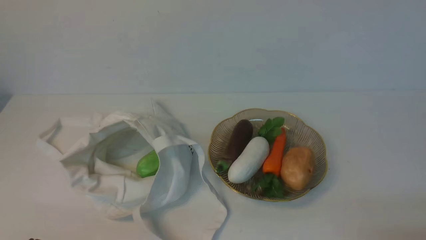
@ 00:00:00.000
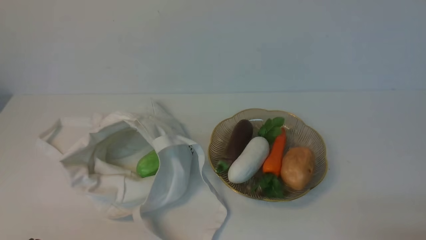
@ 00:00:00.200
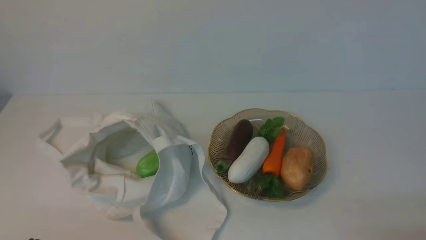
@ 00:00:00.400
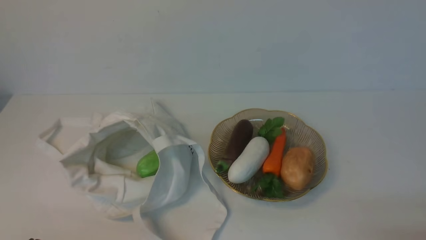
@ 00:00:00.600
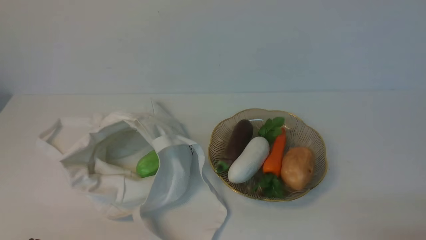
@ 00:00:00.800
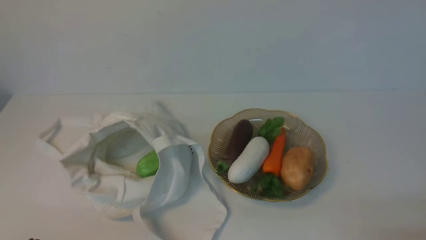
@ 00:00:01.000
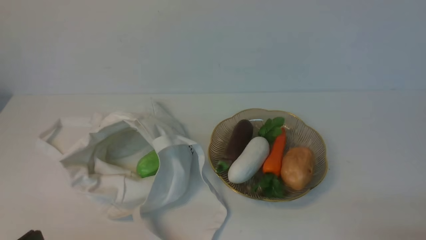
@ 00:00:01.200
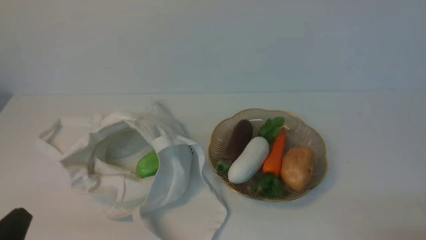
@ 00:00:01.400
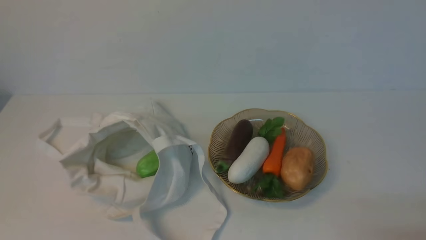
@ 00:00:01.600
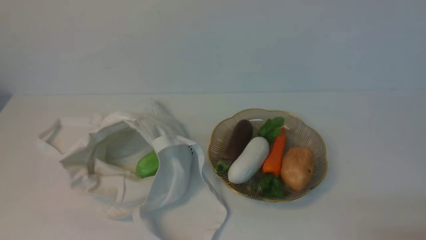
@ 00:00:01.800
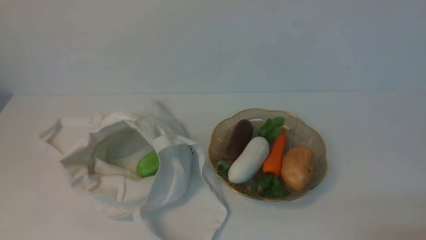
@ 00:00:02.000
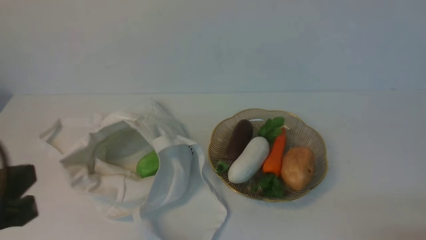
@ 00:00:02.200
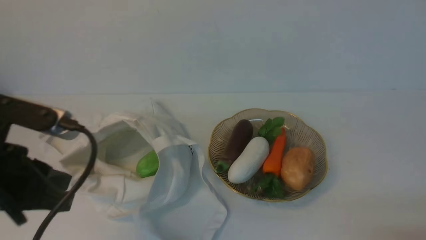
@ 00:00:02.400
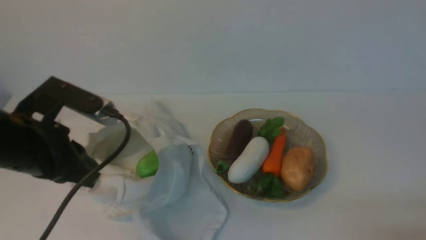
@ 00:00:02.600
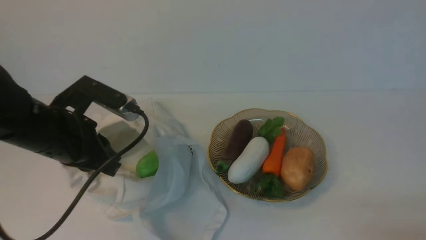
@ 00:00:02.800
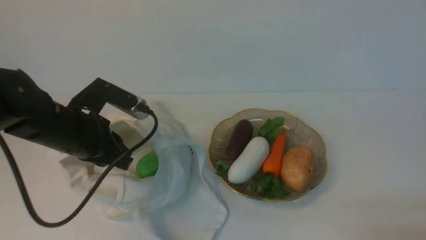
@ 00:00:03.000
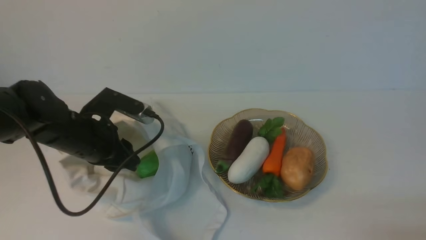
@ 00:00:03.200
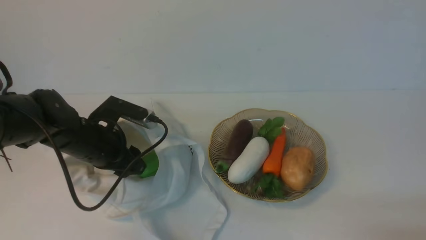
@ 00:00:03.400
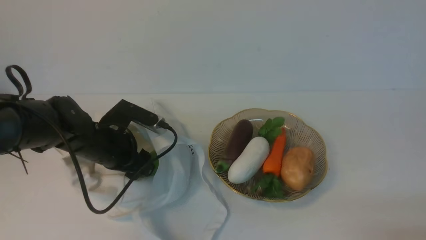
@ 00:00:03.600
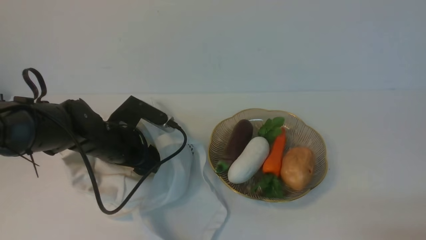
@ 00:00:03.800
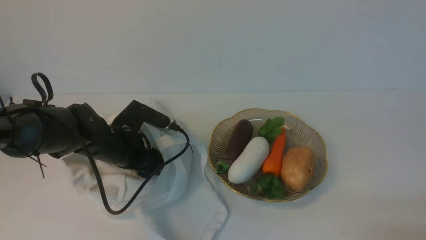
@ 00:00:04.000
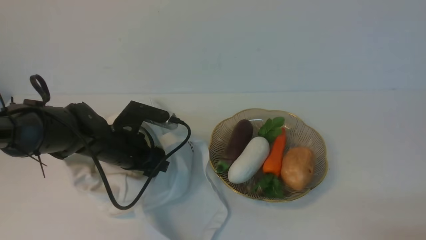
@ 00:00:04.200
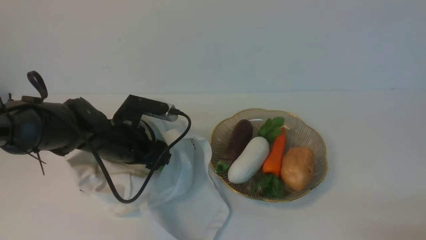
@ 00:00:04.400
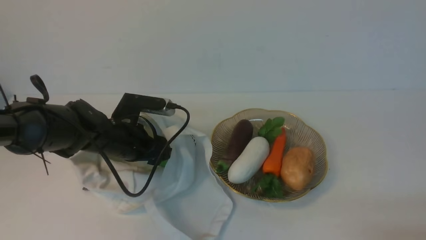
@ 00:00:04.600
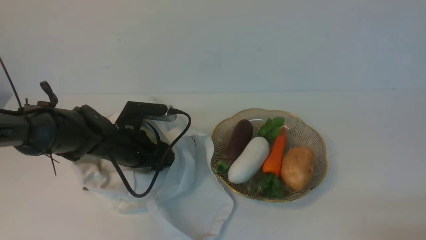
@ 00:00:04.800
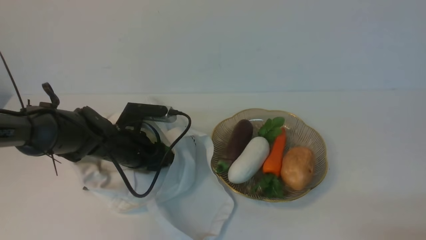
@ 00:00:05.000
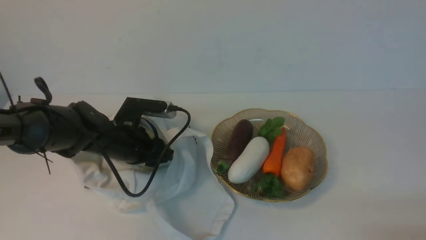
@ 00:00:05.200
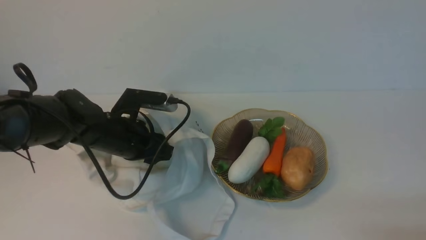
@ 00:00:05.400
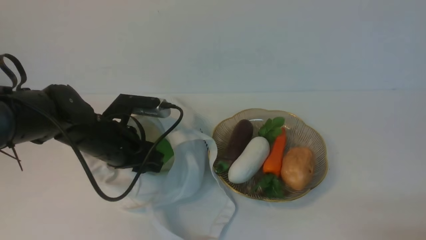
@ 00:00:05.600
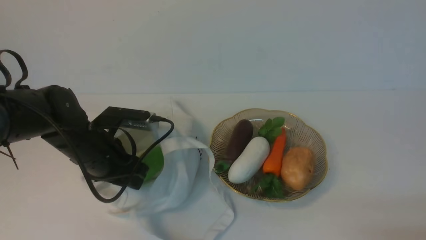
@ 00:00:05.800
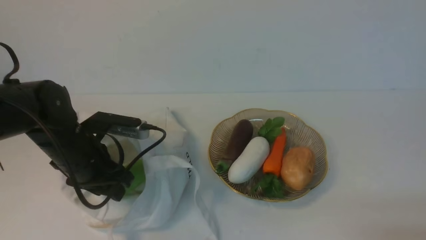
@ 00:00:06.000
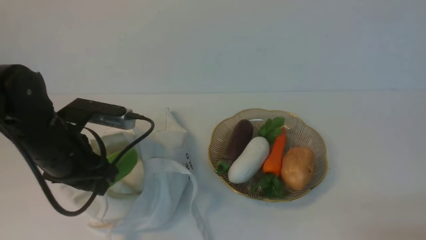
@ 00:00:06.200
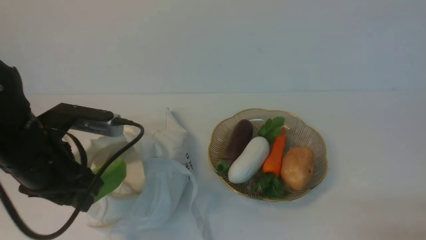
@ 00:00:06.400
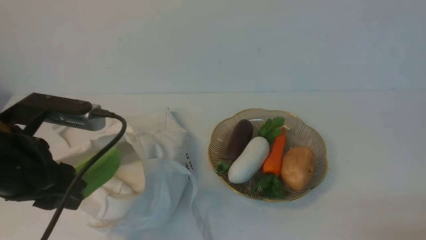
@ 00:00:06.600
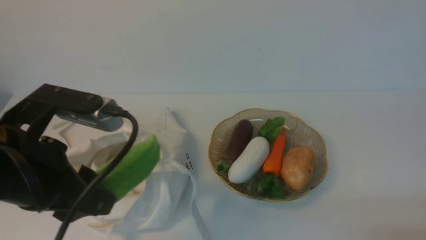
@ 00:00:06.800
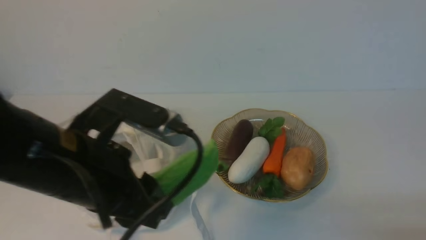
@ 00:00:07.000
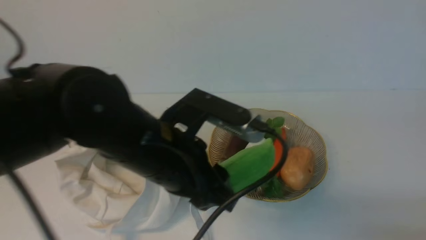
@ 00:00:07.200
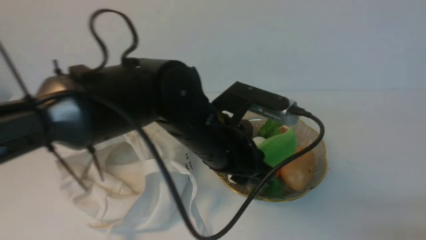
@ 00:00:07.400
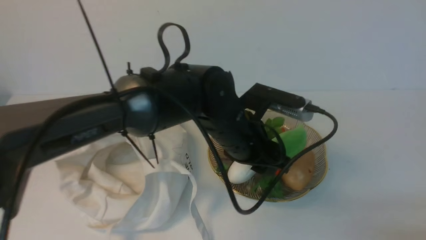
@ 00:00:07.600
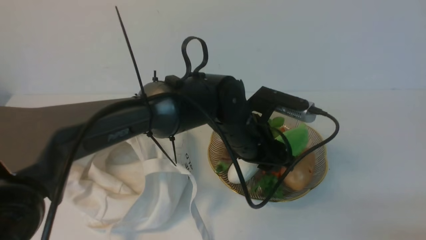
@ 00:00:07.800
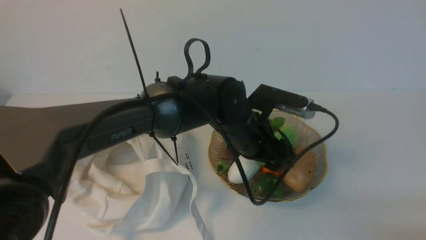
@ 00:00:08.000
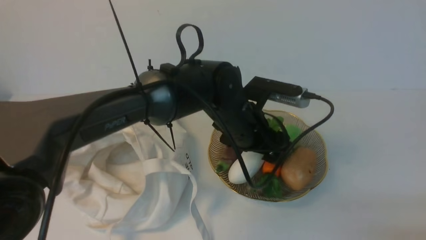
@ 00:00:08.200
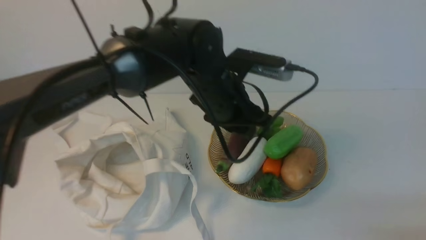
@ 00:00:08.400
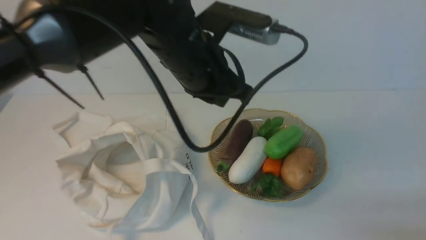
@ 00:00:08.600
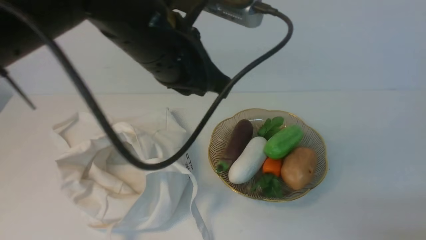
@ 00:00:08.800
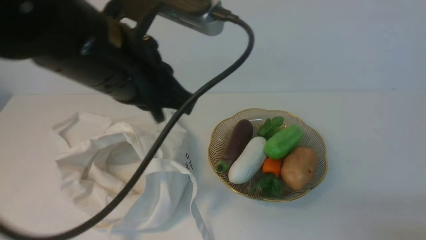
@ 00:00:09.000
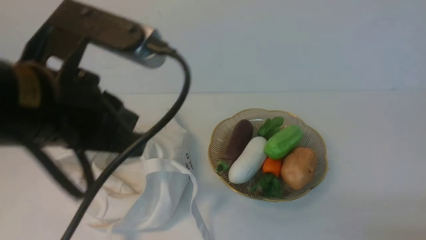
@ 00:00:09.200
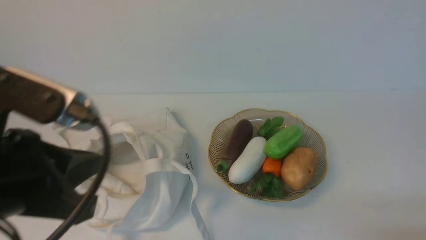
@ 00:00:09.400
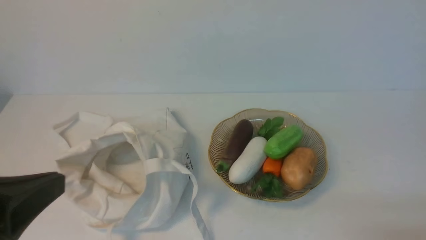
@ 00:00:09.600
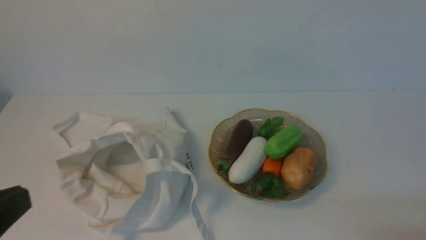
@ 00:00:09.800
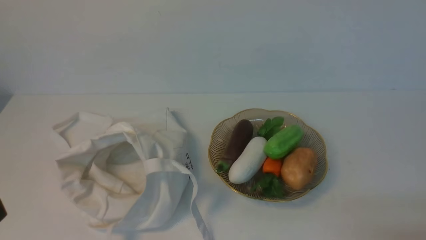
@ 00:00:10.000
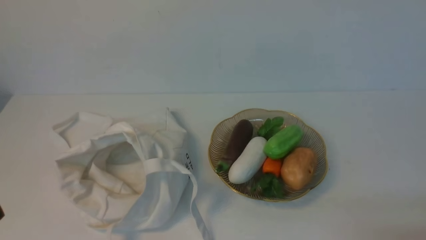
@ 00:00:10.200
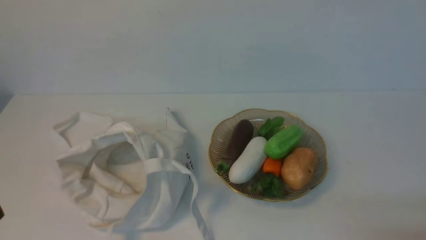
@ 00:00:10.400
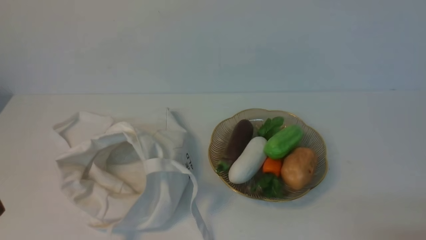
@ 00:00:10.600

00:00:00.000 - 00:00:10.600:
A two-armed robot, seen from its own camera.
Task of the whole recording: take vegetables from cloth bag on white table place on plate.
Step, 00:00:00.000 - 00:00:04.000: Grasp the bitter melon with left gripper.
Step, 00:00:04.200 - 00:00:08.200: Place the bitter melon on the plate with left gripper.
00:00:01.600 - 00:00:03.000: The left gripper heads forward, covering some 25 cm.
00:00:03.000 - 00:00:04.600: The left gripper is displaced downward and forward by approximately 10 cm, and opens.
00:00:04.600 - 00:00:06.000: The left gripper moves about 5 cm, and closes.
00:00:06.000 - 00:00:07.600: The left gripper is displaced to the right by roughly 20 cm.
00:00:07.600 - 00:00:09.000: The left gripper moves upward and to the left, approximately 15 cm, and closes.
00:00:09.000 - 00:00:10.600: The left gripper heads backward and to the left, covering some 25 cm.

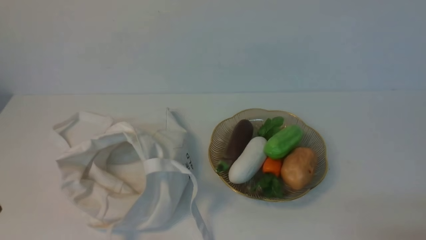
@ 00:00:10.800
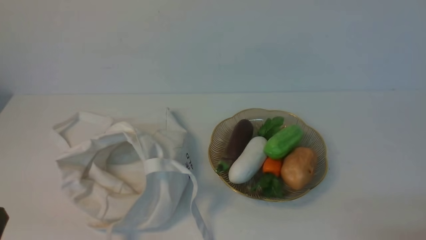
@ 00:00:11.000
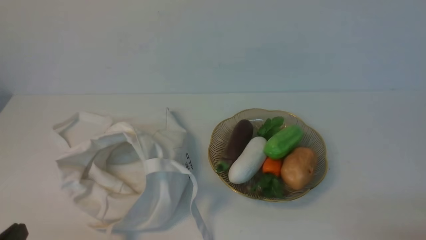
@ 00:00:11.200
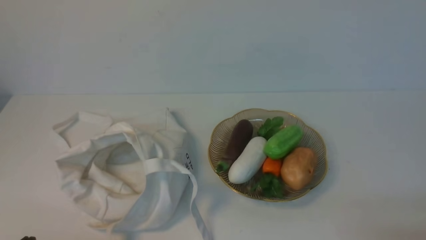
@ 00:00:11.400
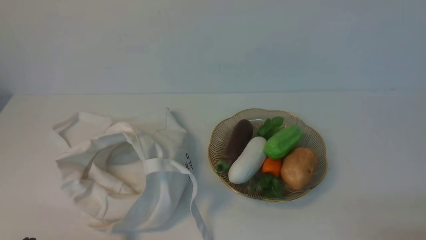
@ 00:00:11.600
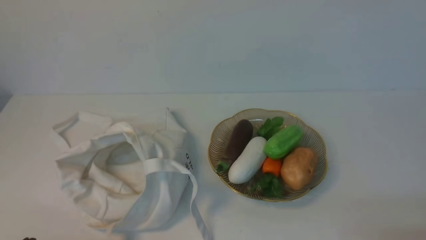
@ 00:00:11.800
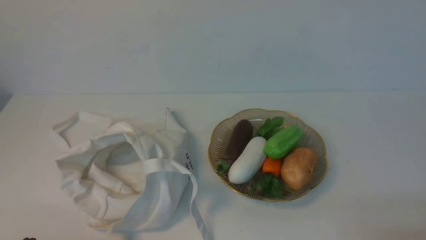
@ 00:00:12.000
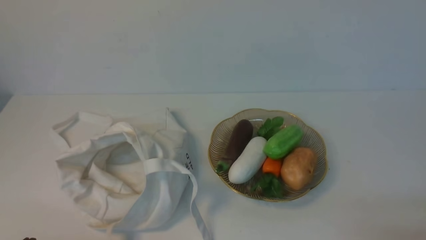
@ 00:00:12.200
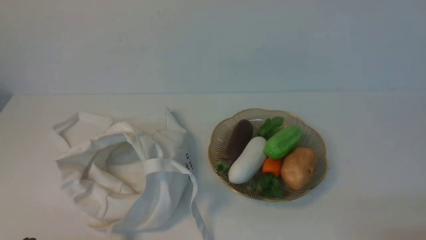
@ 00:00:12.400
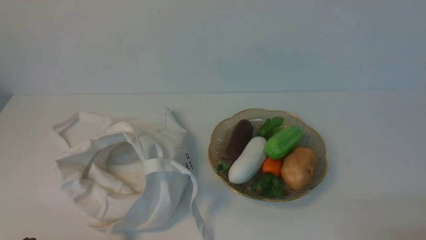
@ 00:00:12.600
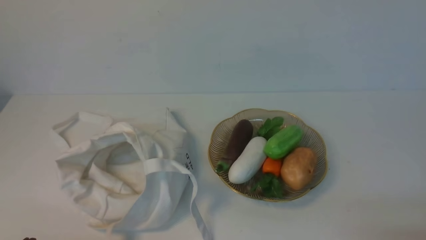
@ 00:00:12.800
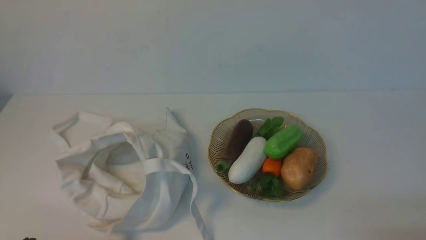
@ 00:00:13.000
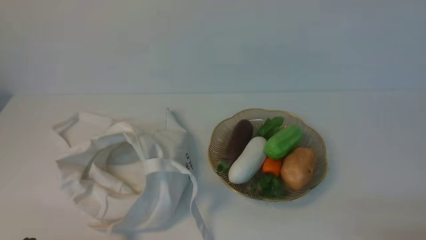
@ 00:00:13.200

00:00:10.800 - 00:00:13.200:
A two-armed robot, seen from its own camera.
Task of the whole recording: take vegetables from cloth bag on white table place on plate.
00:00:12.000 - 00:00:13.200: Neither gripper changes place.
